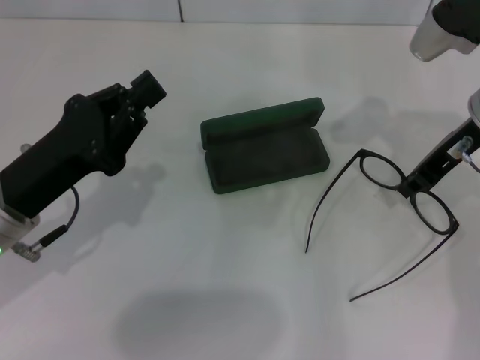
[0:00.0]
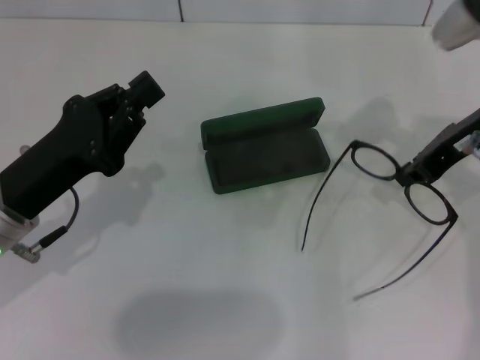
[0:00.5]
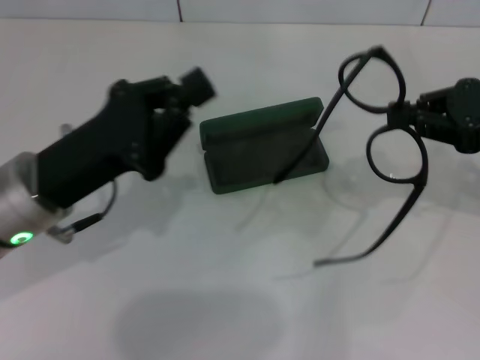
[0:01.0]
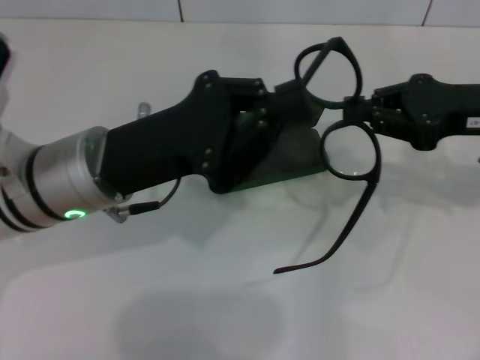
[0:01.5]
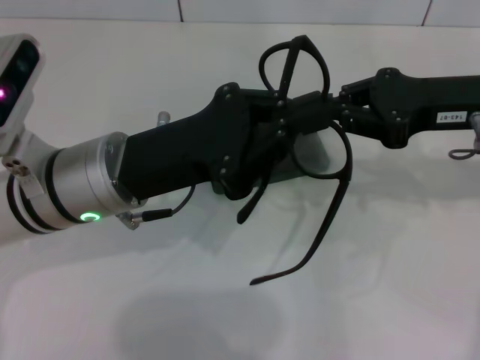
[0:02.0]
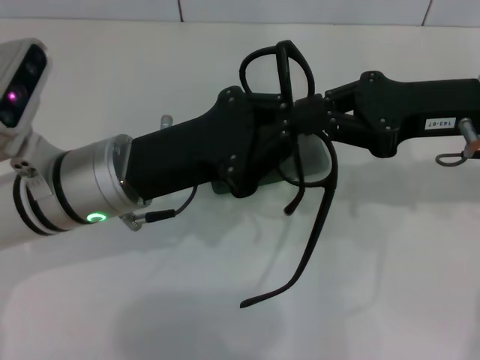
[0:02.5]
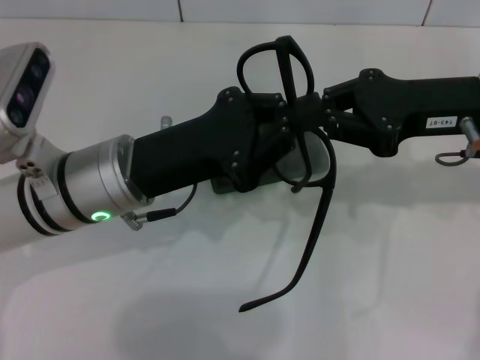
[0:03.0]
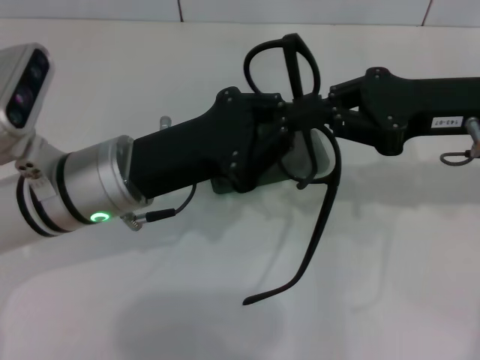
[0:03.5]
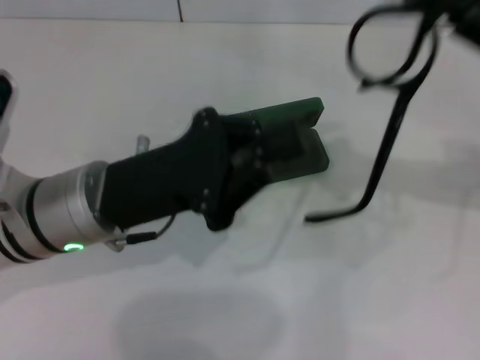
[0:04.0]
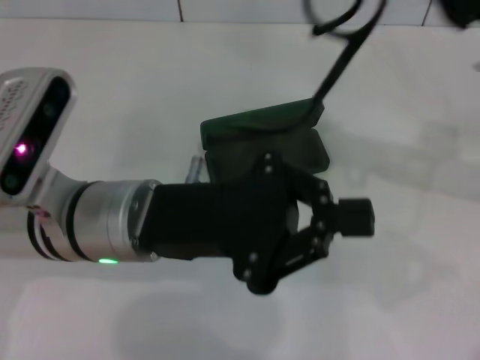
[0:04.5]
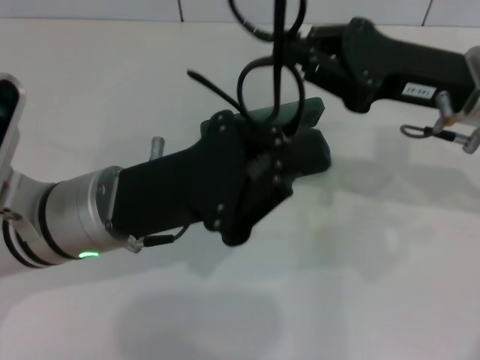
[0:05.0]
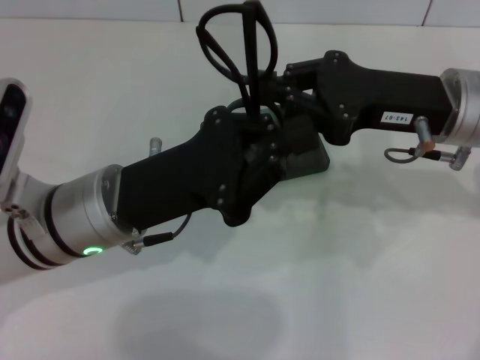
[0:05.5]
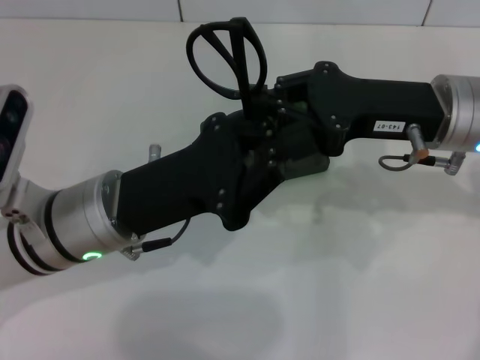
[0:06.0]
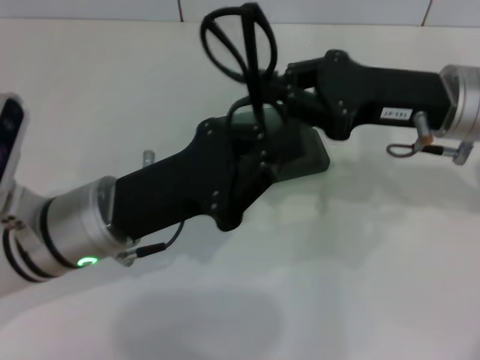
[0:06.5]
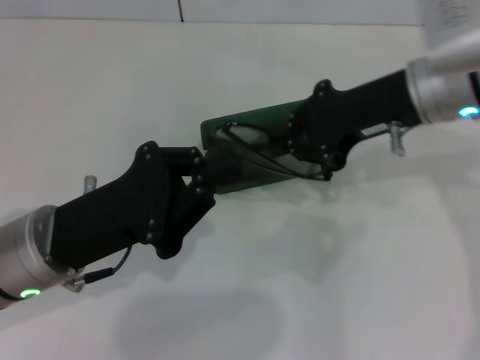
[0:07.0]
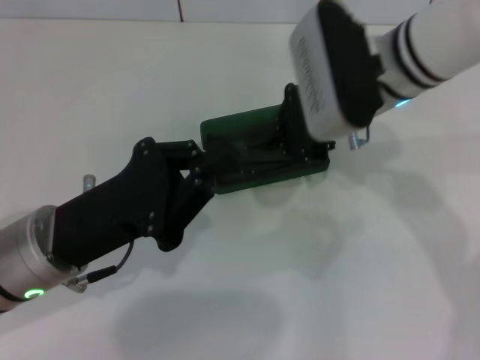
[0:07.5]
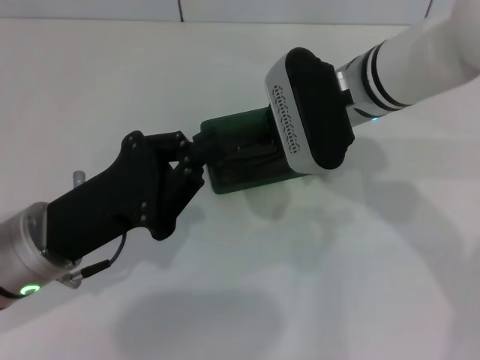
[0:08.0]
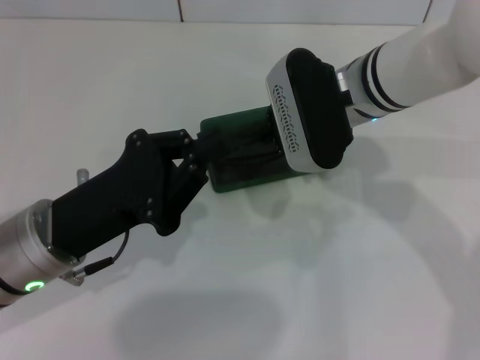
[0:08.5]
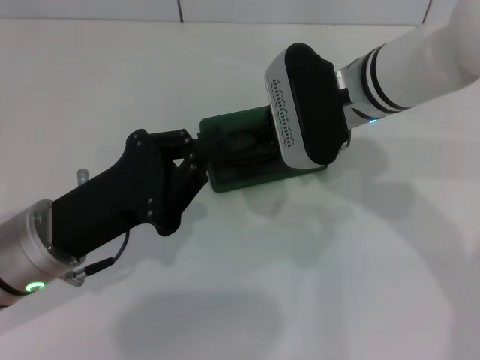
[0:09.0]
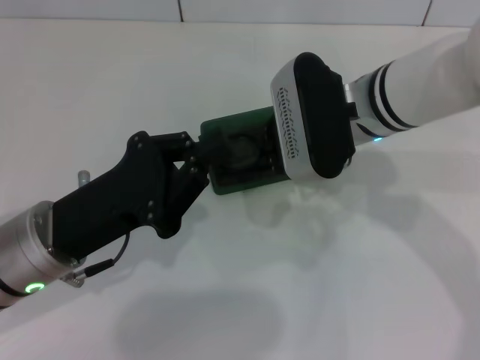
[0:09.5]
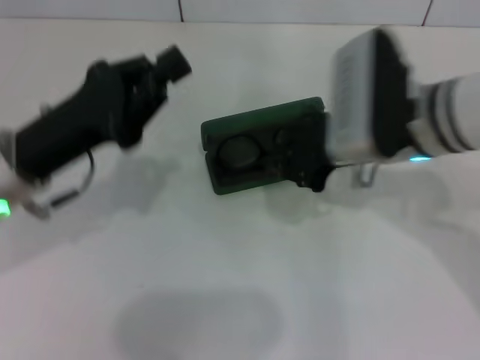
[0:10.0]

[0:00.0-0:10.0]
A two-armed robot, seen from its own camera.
Step, 0:00.5 to 0:05.5: Fold the frame with your left hand.
Step, 0:06.0 to 0:09.5: Put the glasses into the case with your right hand.
0:00.0 to 0:02.0: The left gripper travels to the right by approximately 10 cm, while the right gripper moves roughly 10 cm to the right and comes back.
0:02.0 to 0:04.0: The right gripper shifts by about 5 cm.
0:04.0 to 0:06.0: The right gripper is displaced to the left and downward by roughly 10 cm.
0:06.0 to 0:08.0: The left gripper moves approximately 5 cm. The right gripper goes about 10 cm to the left.
0:08.0 to 0:10.0: The right gripper moves about 5 cm. The left gripper moves some 5 cm.

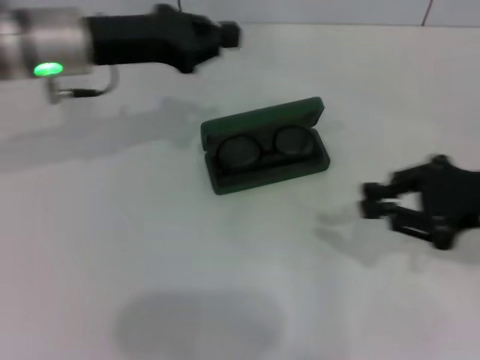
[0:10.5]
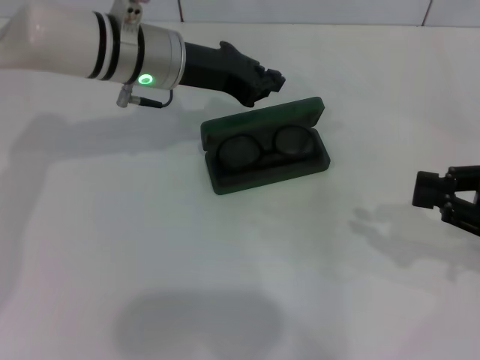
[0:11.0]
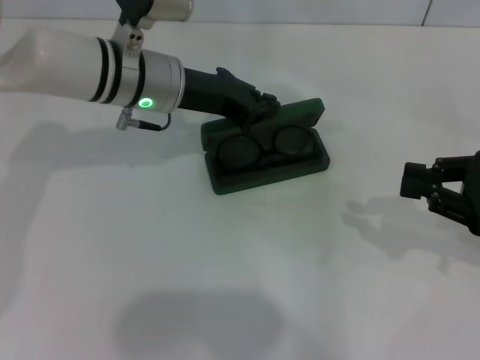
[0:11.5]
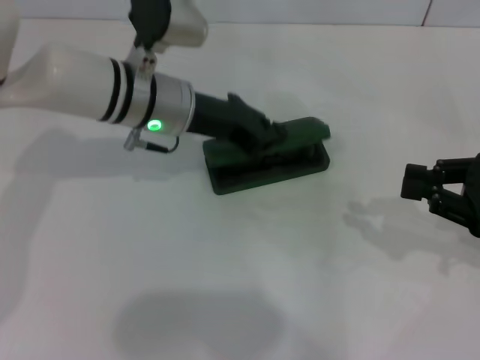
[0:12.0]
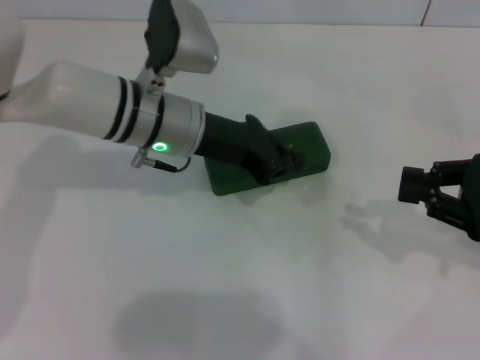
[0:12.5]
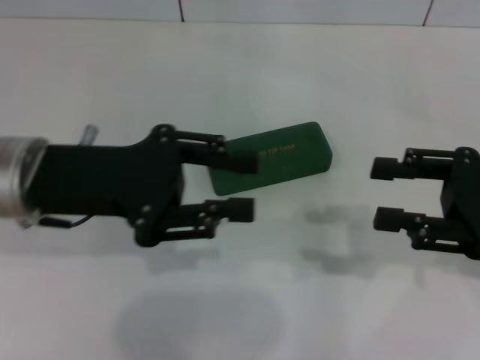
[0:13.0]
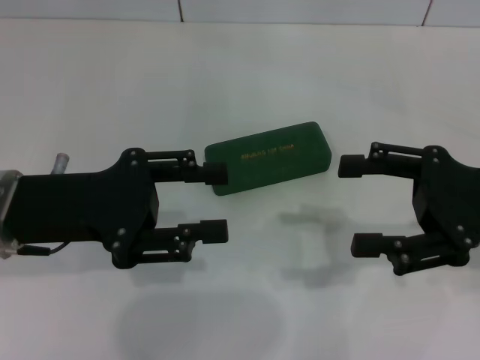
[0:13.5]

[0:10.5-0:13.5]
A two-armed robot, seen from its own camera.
Step, 0:10.5 to 0:12.5: Close the glasses case with your left hand.
0:10.5 to 0:12.0: The left gripper heads to the right and downward, covering some 10 cm.
0:12.0 to 0:13.5: The left gripper heads backward and to the left, covering roughly 20 cm, and opens up. The right gripper moves to the left, approximately 5 cm, and opens.
